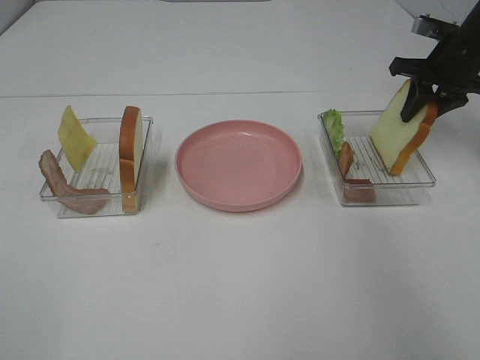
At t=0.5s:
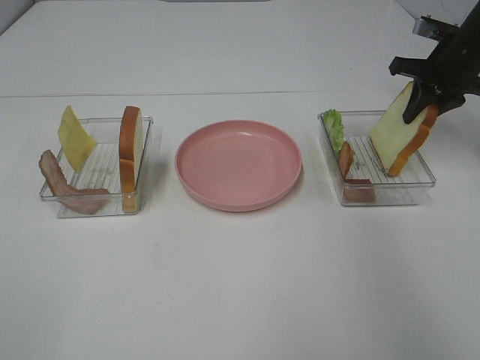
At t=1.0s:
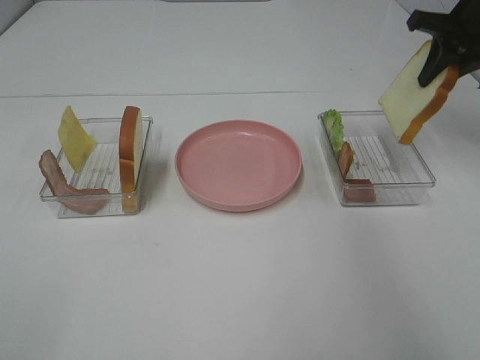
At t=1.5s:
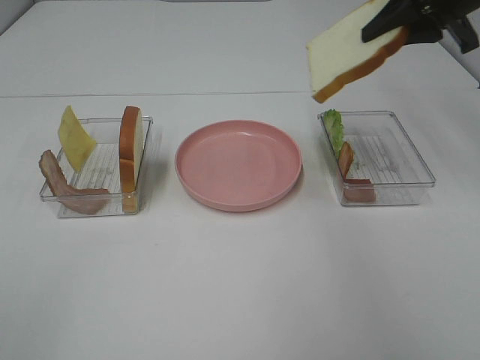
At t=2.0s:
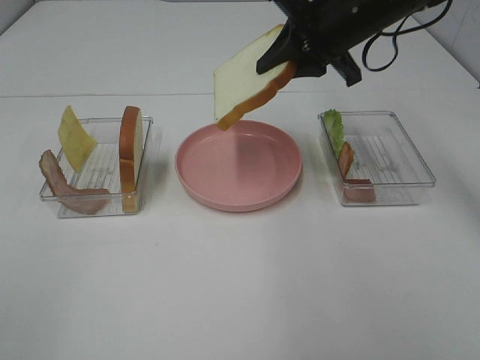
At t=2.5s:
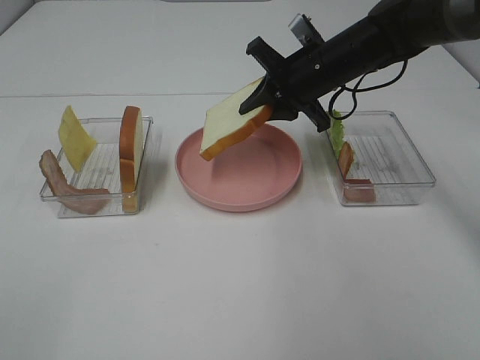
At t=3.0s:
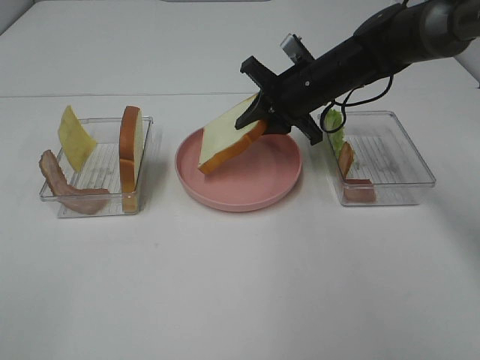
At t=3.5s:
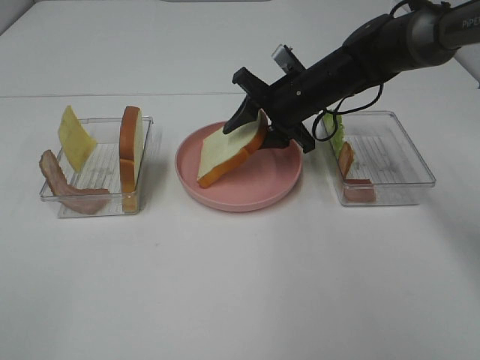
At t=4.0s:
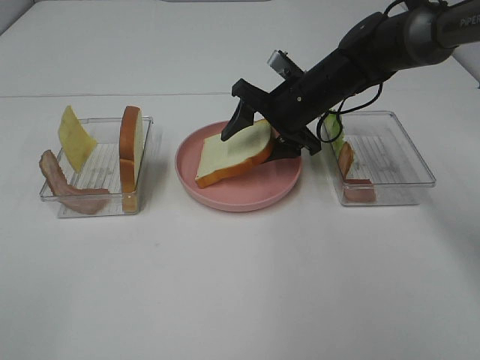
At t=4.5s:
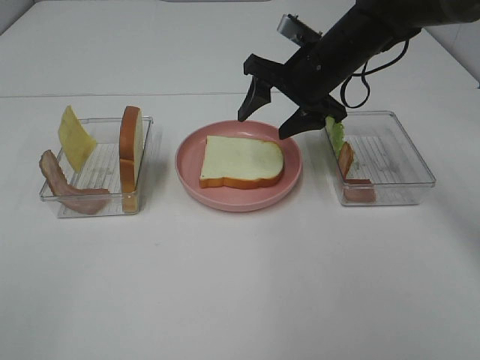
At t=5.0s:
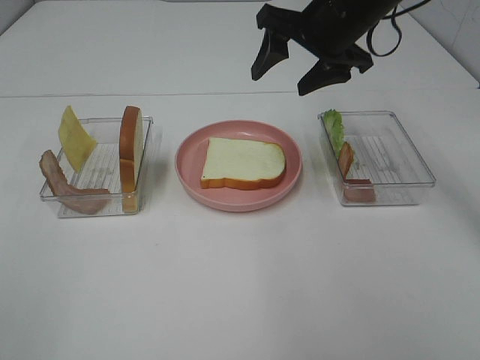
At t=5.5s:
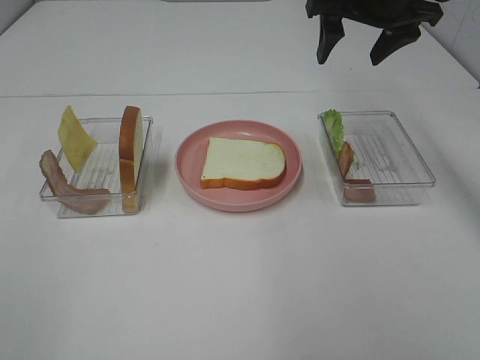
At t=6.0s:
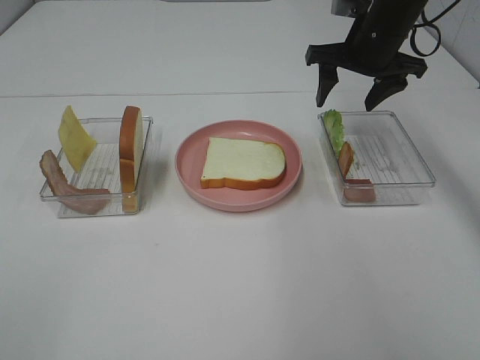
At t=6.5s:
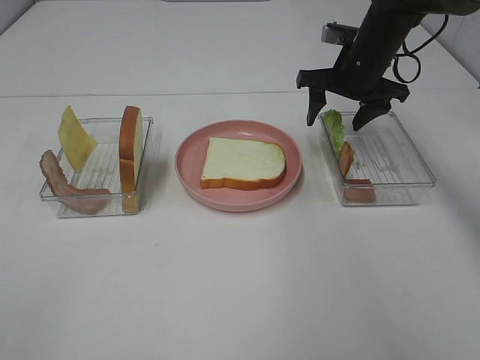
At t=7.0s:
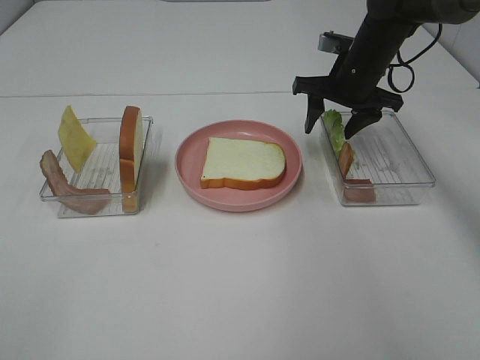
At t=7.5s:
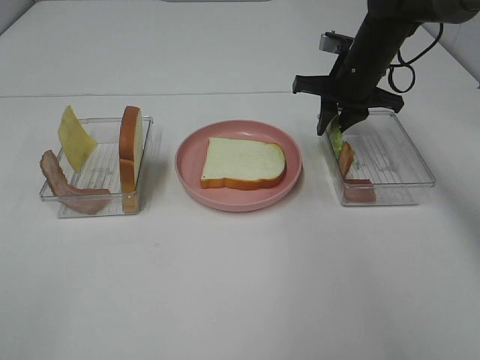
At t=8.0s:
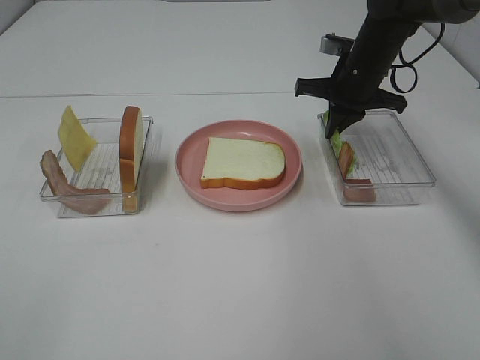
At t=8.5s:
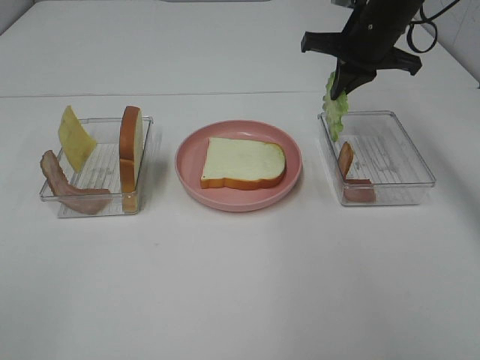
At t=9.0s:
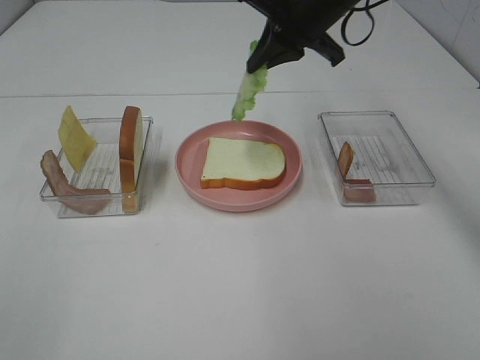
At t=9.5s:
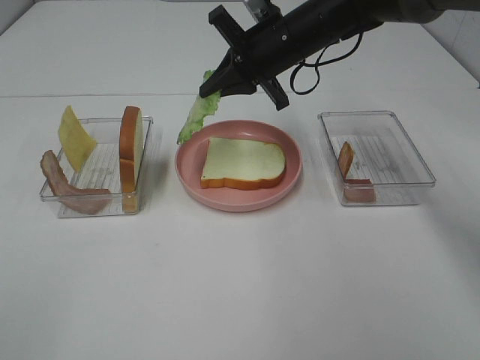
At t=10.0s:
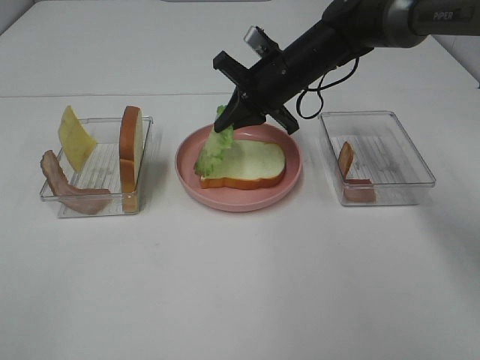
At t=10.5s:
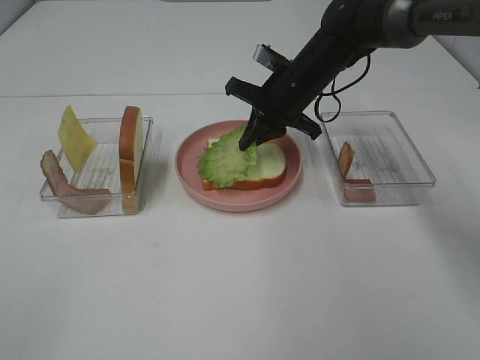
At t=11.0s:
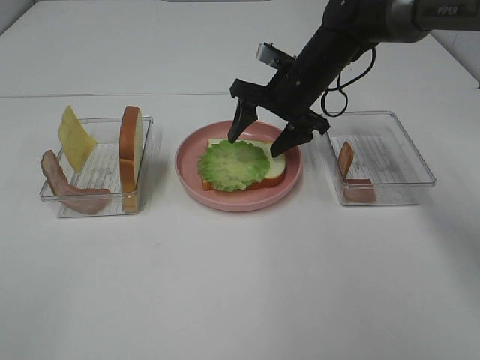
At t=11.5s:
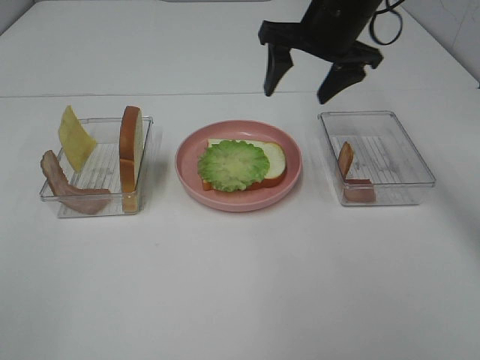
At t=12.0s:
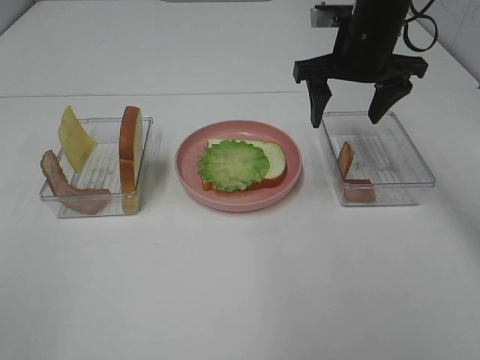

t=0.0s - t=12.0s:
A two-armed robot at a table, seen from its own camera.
Task of the whole recording: Make sandwiches.
Step, t=1.0s - t=4.5s: Right hand:place the bread slice on the plate.
Step, t=5.0s - t=8.0s: Right hand:grab the lettuce slice.
Step, t=8.5s - t=11.0s: Right hand:place the lettuce slice on the bread slice.
t=0.0s - t=2.0s: The right gripper heads to the left, covering roughly 20 cm.
t=2.0s - t=4.0s: The right gripper travels downward by roughly 10 cm, and opens its fingers.
t=4.0s - t=6.0s: The right gripper goes about 10 cm upward and to the right.
t=6.0s - t=8.0s: The right gripper goes approximately 5 cm downward, and closes its fingers.
t=8.0s - t=10.0s: The right gripper shifts approximately 10 cm to the left.
t=10.0s - t=12.0s: The right gripper is displaced upward and to the right by approximately 10 cm, and opens up.

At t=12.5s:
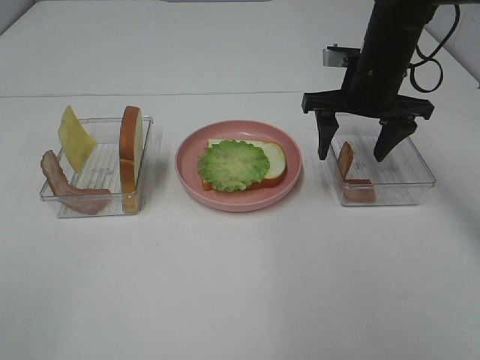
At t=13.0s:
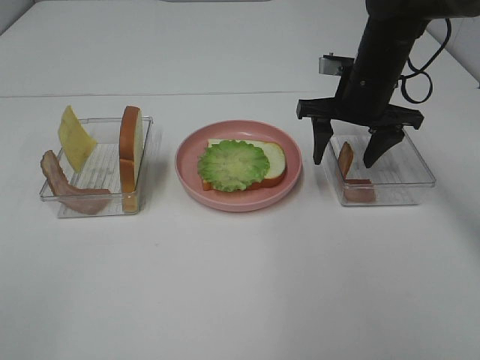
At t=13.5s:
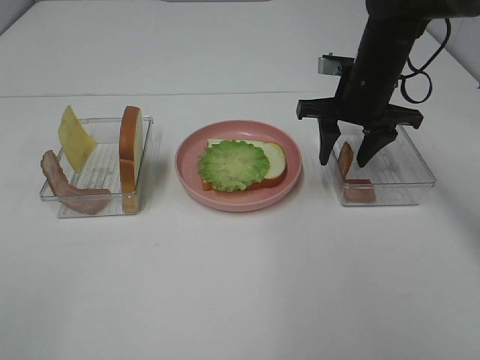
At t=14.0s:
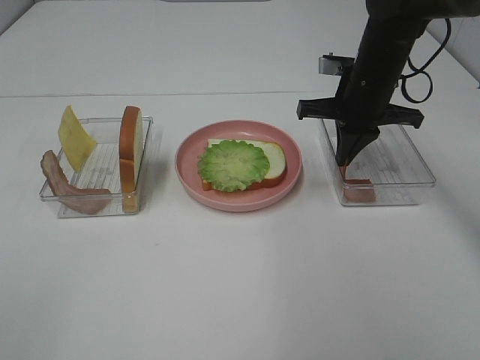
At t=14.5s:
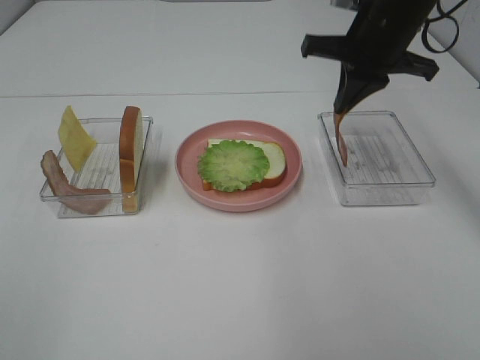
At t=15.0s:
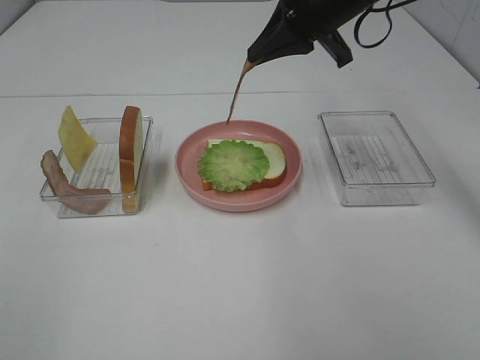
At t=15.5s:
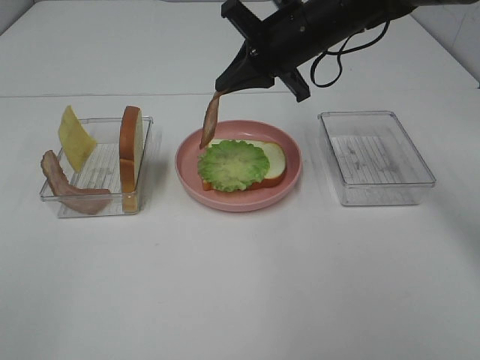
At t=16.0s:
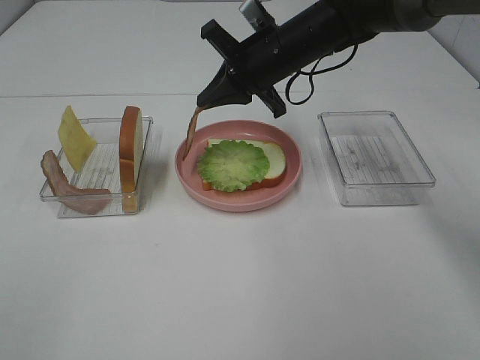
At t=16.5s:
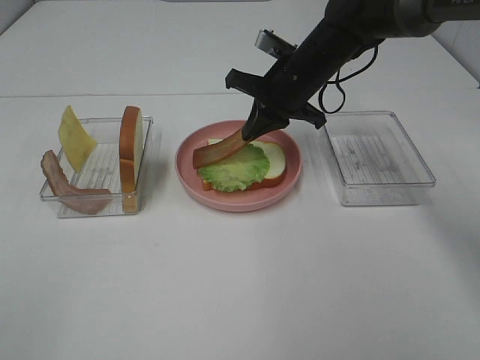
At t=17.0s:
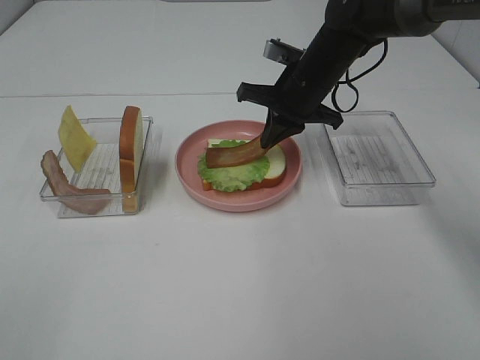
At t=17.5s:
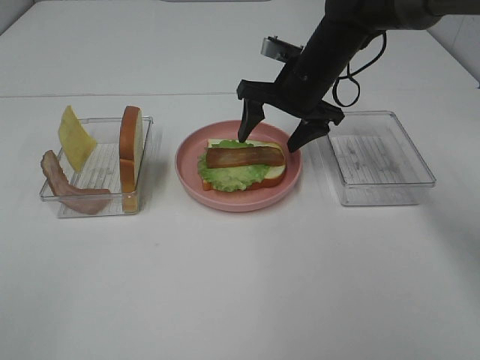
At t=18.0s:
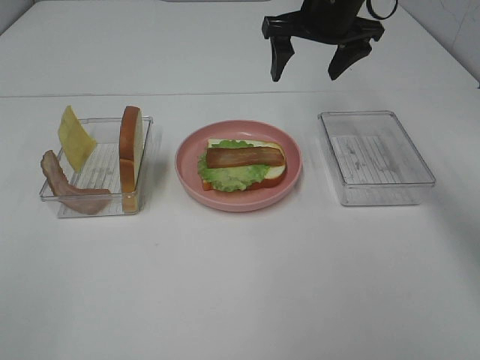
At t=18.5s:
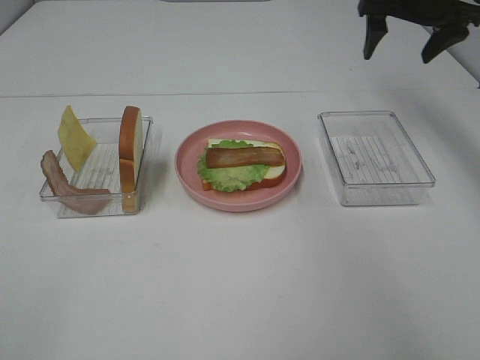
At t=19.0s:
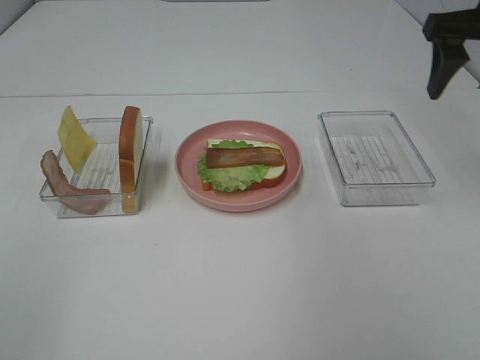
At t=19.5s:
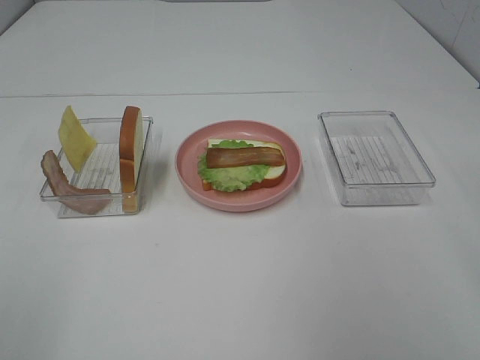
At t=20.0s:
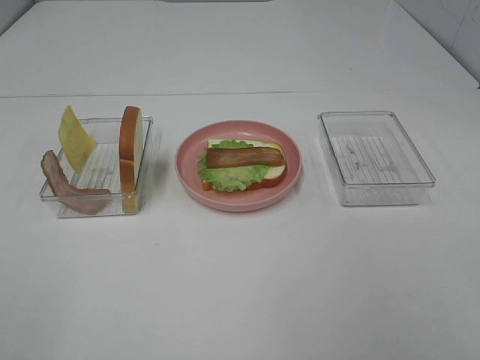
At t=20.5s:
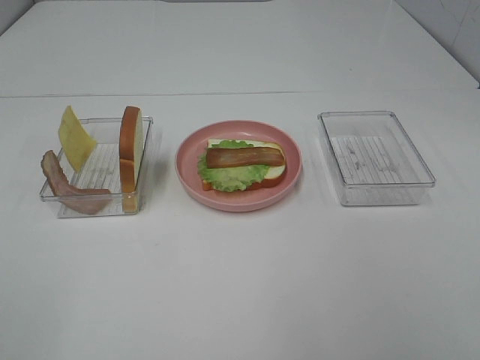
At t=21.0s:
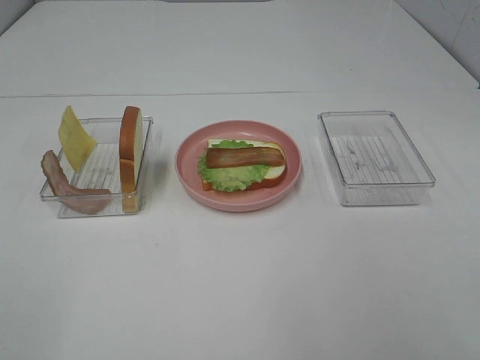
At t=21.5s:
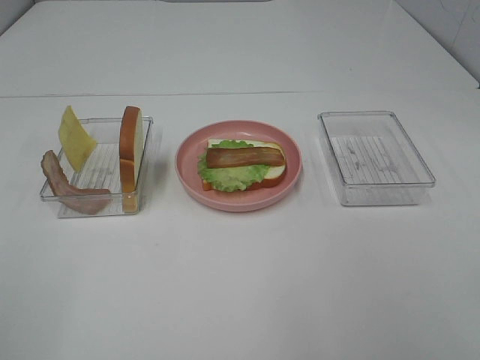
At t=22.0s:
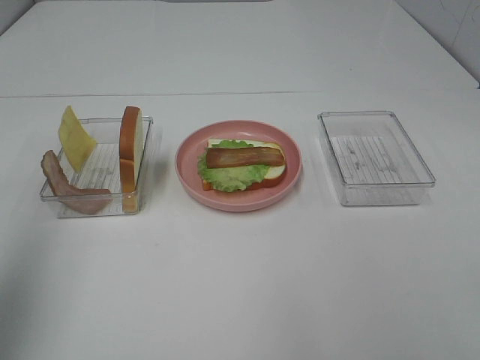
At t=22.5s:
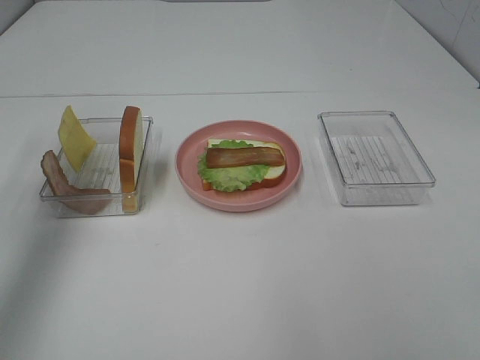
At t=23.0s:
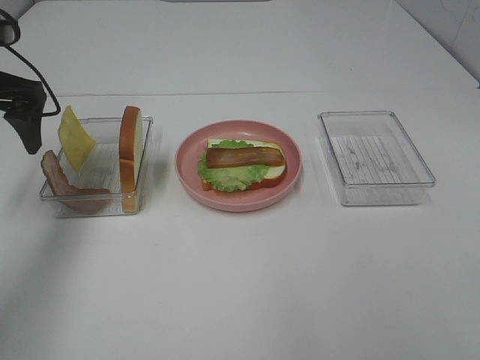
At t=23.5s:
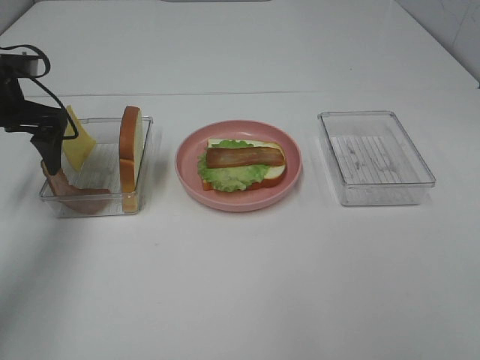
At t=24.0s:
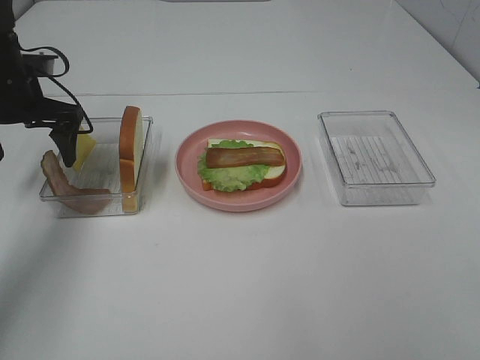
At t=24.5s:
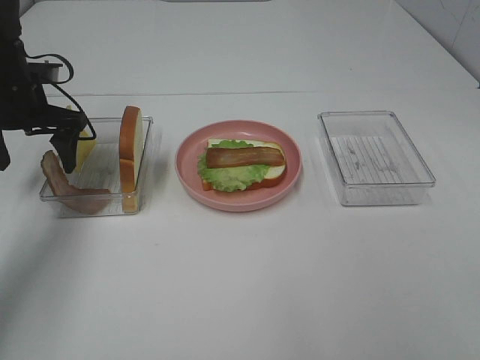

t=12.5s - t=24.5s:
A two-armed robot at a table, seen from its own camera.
Task of the whole recording: Make sandwiches.
Step, t=12.5s - t=14.0s: Right hand:grab the bacon.
Step, t=14.5s - t=17.5s: Right hand:place bacon on lettuce slice.
t=12.5s - t=14.5s: The right gripper goes some 5 cm upward, and closes up.
t=14.5s - t=16.5s: The right gripper goes about 10 cm downward and to the left.
t=16.5s - t=18.5s: The right gripper shifts some 20 cm to the right and upward, and opens up.
t=18.5s - t=20.5s: The right gripper moves backward, roughly 50 cm.
t=20.5s - t=22.5s: The left gripper heads forward, covering some 35 cm.
t=22.5s - t=24.5s: The left gripper travels downward and forward by approximately 20 cm.

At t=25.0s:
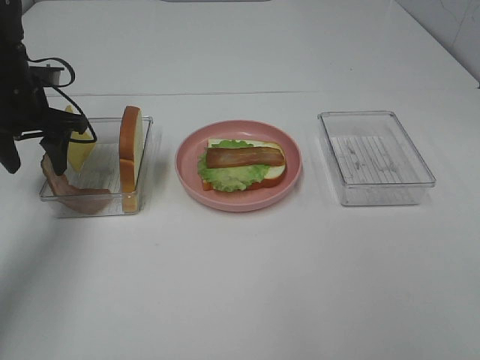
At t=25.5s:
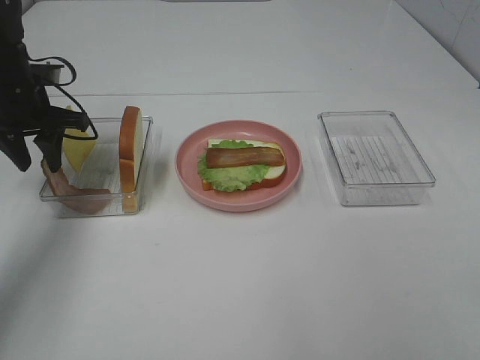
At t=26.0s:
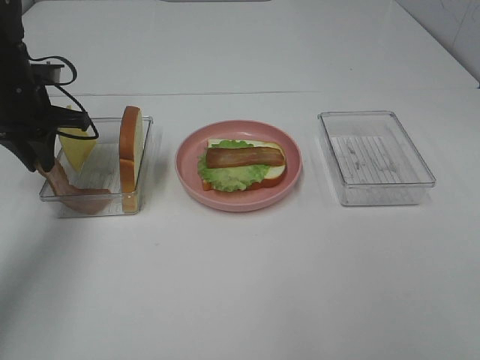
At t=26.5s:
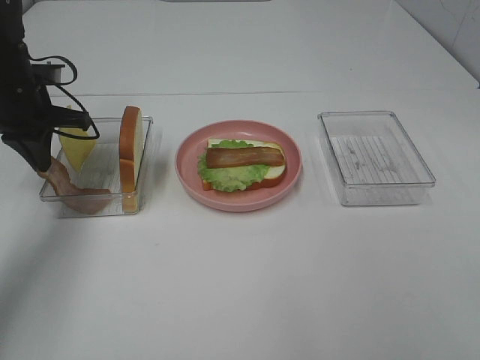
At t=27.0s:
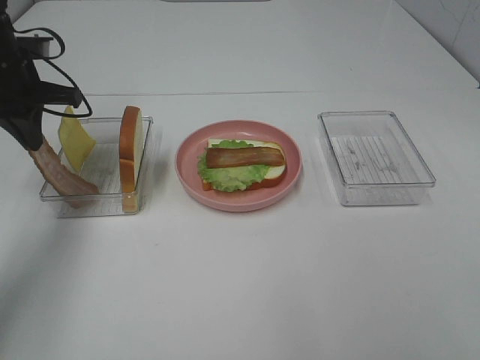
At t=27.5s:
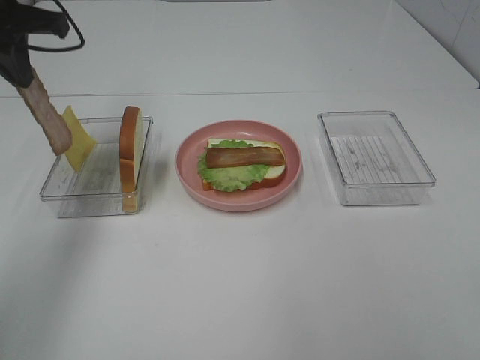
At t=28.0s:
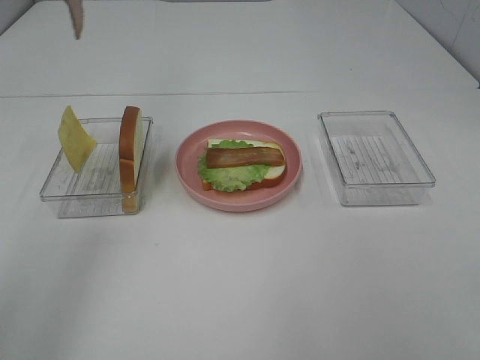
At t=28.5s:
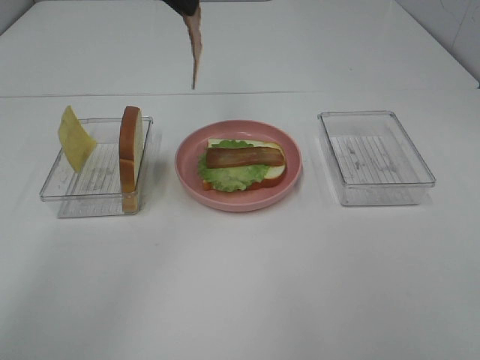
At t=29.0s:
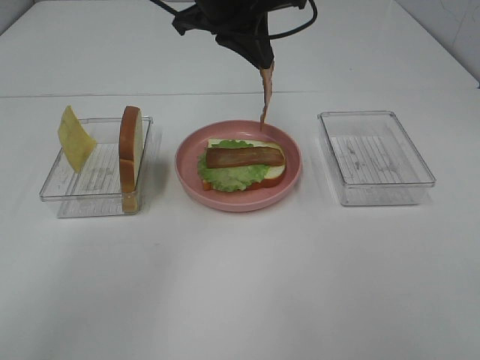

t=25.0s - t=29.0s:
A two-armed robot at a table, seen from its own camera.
Task of the whole recording: Make sandwiches.
t=25.0s - t=27.0s: The left gripper closes its fingers.
t=27.0s - t=29.0s: The left gripper is displaced to the right by some 25 cm.
